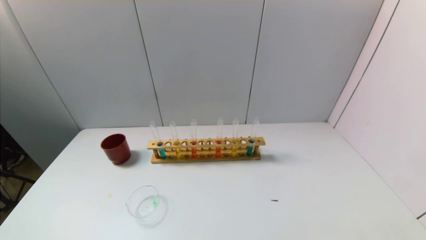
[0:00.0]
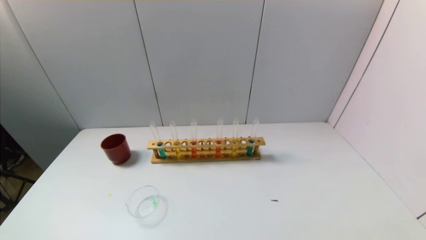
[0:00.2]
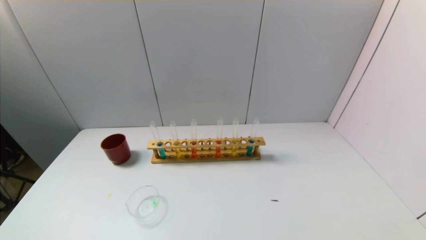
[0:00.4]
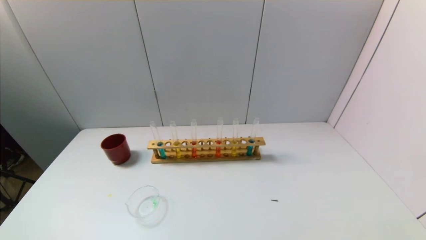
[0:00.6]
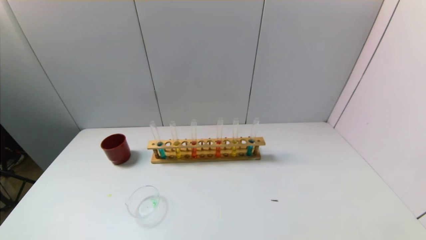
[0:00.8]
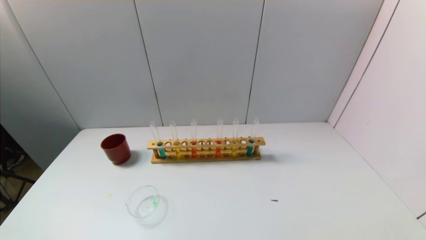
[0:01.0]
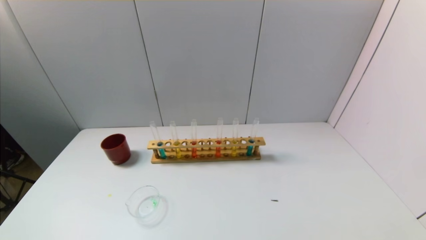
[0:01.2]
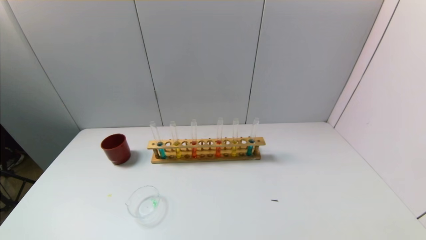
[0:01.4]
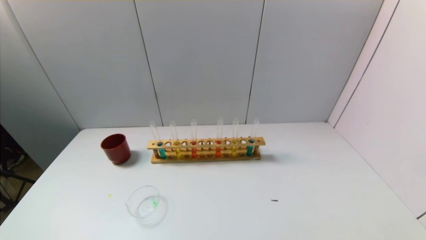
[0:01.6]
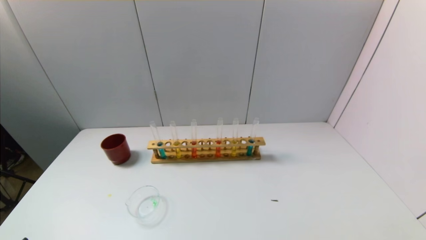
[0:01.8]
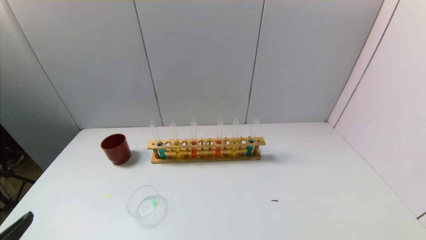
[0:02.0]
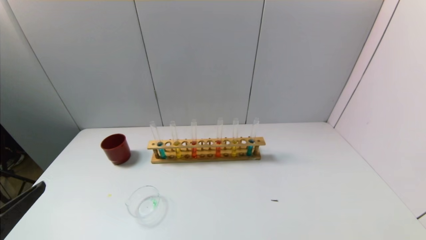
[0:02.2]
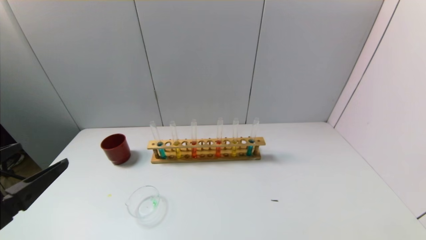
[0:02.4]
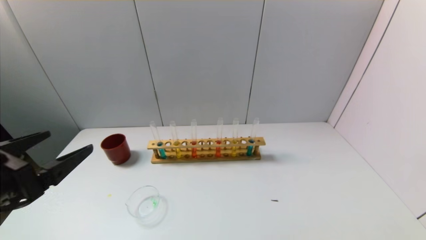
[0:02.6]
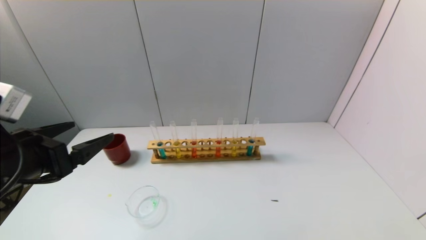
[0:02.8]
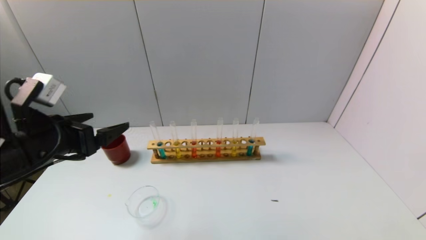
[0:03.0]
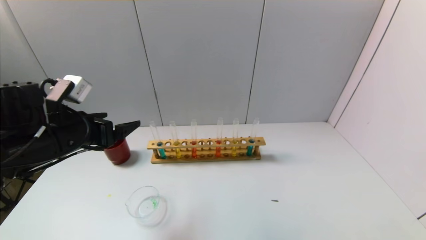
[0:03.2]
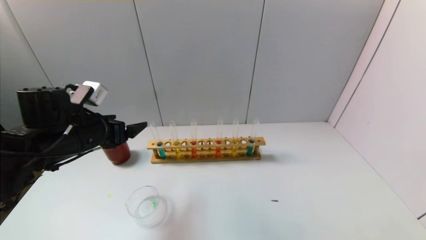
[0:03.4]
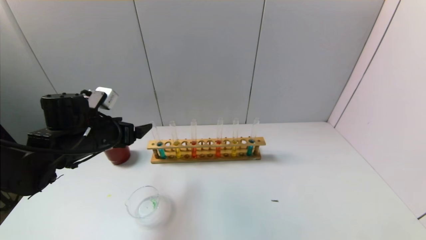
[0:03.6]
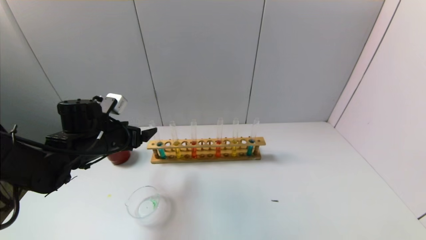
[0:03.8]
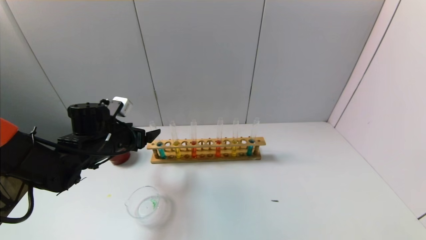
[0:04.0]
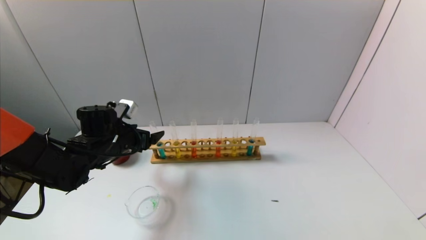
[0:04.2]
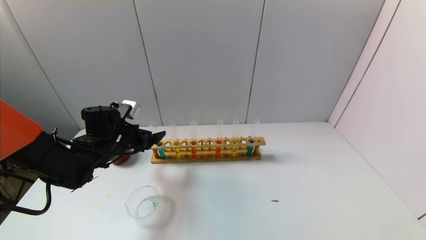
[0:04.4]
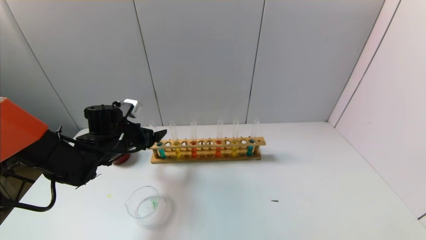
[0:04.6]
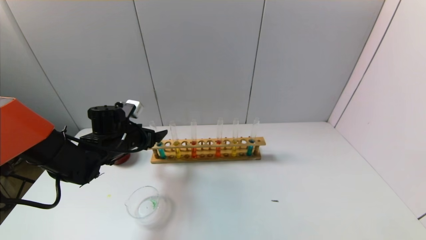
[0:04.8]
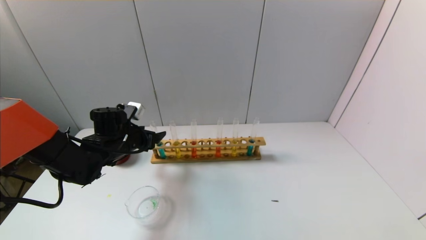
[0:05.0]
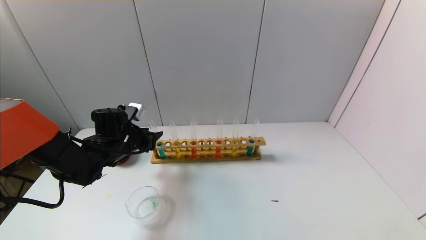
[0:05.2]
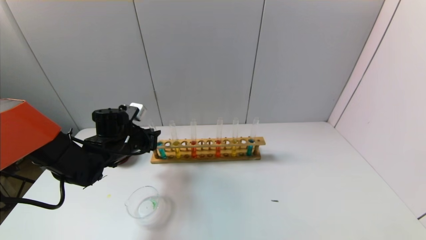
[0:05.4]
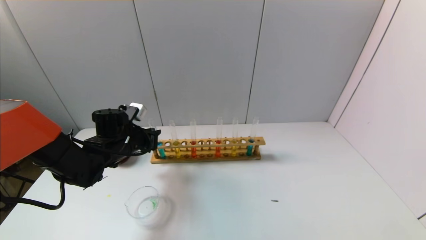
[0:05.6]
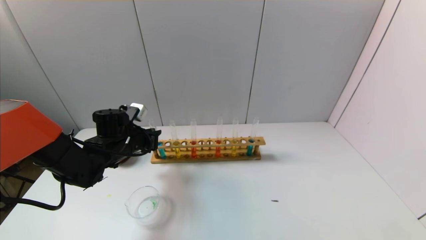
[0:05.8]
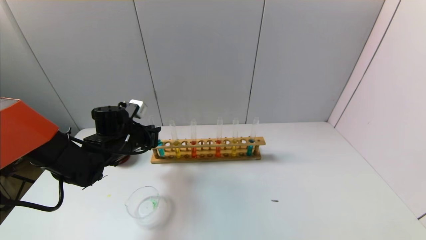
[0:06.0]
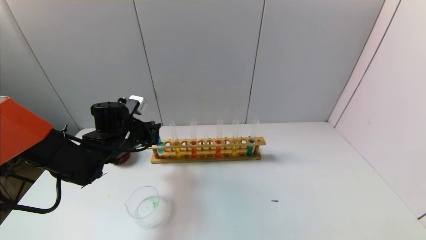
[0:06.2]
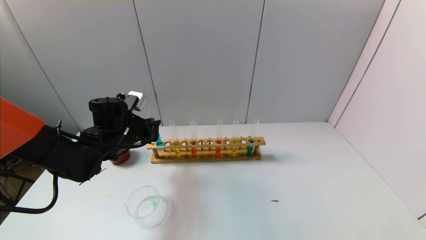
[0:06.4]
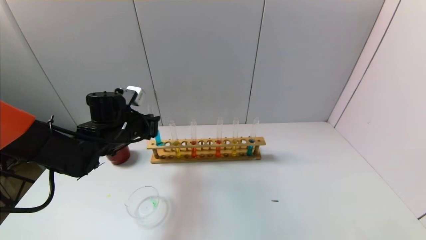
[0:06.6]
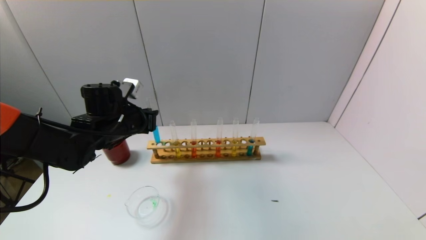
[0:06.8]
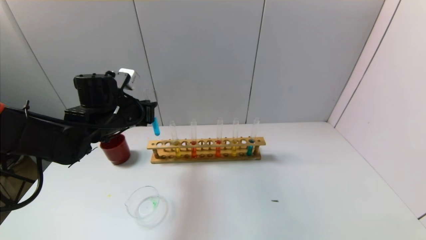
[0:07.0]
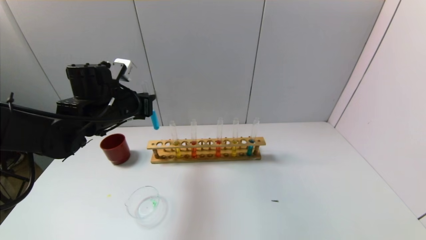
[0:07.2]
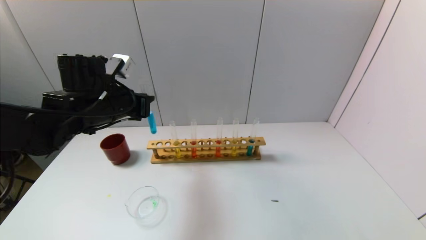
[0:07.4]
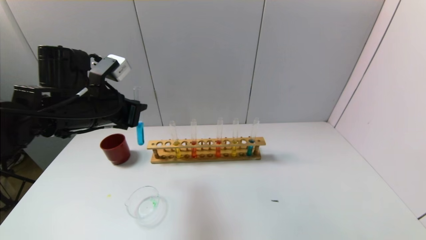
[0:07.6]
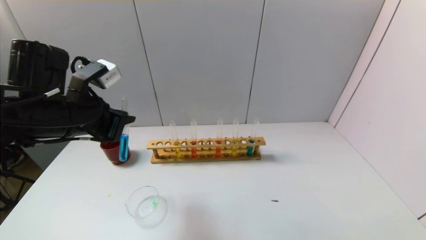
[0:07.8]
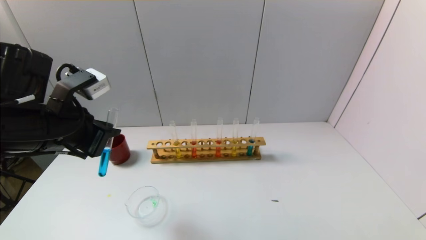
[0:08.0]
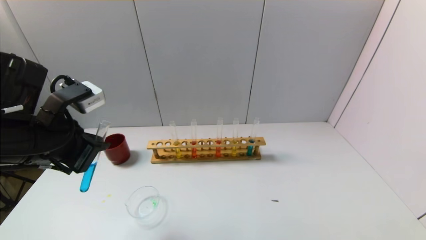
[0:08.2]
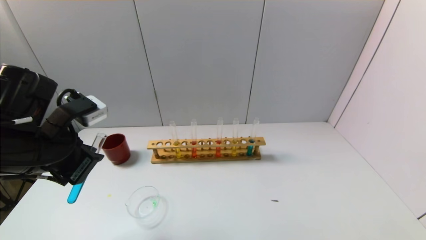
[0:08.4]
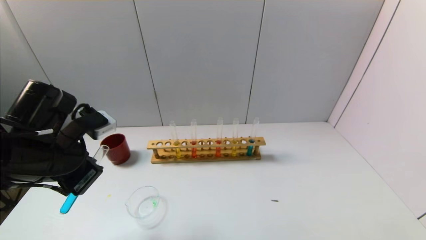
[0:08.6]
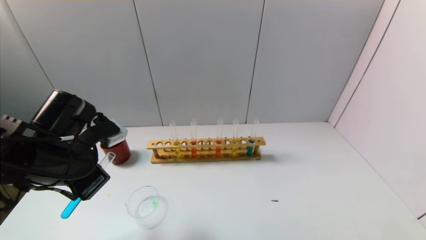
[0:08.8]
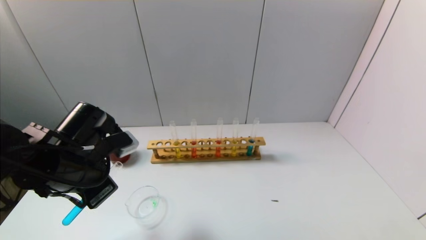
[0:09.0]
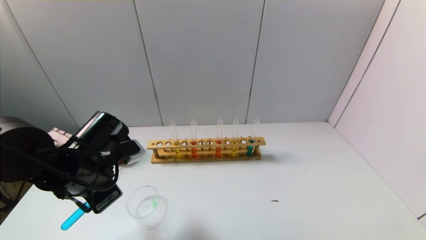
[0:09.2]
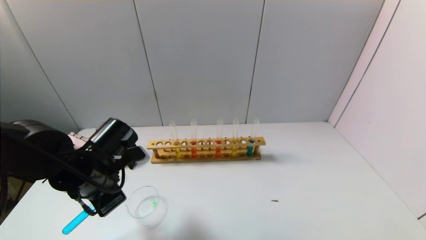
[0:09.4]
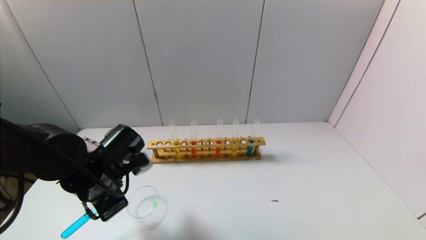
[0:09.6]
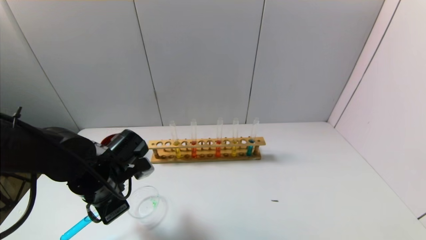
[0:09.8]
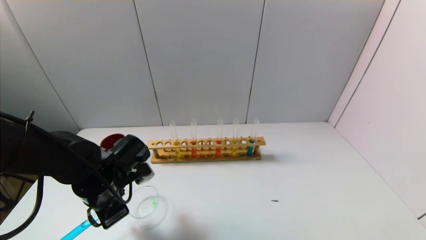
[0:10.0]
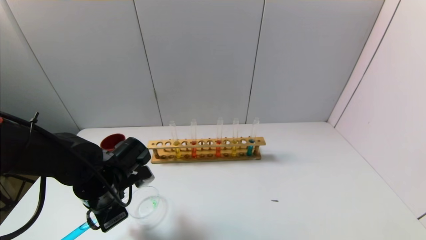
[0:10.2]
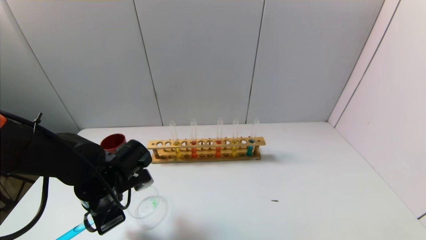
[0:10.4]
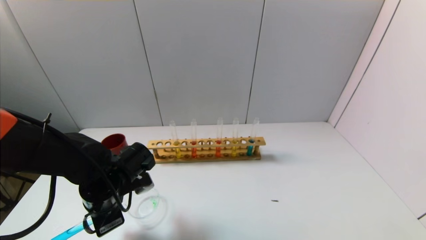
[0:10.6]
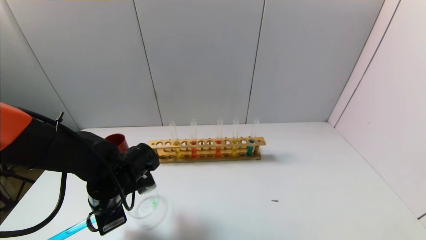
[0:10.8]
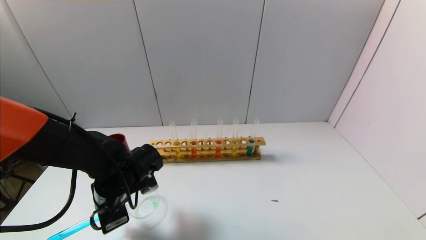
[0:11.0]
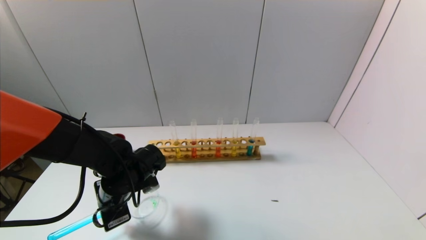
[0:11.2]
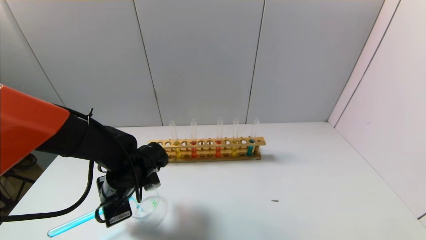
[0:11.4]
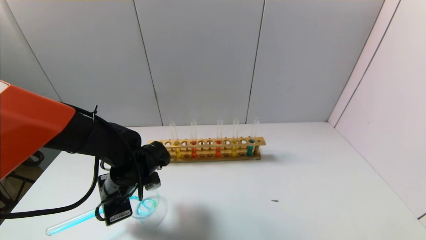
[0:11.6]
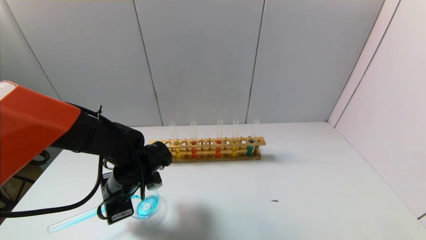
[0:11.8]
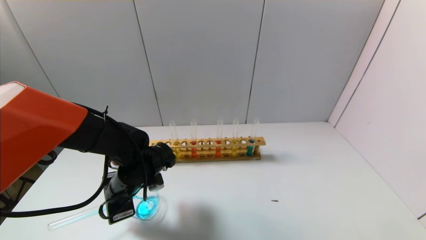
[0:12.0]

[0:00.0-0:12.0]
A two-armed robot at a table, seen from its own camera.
Task of the whole recording: pick up the test tube with yellow pigment and the test tube with blue pigment by grippers and pour them into the beaker.
Step, 0:00.0 to 0:05.6: Grasp the blue reagent with the left gripper.
0:01.6 to 0:03.0: The left gripper goes approximately 25 cm forward.
0:03.0 to 0:04.4: The left gripper is displaced forward and downward by roughly 15 cm.
0:04.4 to 0:06.0: The left gripper closes.
0:06.0 to 0:07.6: The left gripper moves upward and backward, about 15 cm.
0:07.6 to 0:09.0: The left gripper heads downward and backward, covering about 10 cm.
0:09.0 to 0:10.4: The left gripper moves downward, approximately 10 cm.
0:10.4 to 0:12.0: The grippers make only small movements.

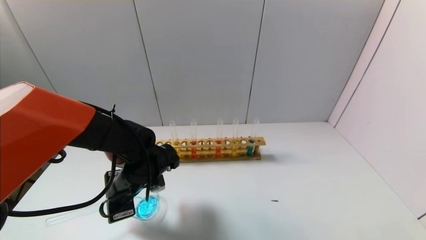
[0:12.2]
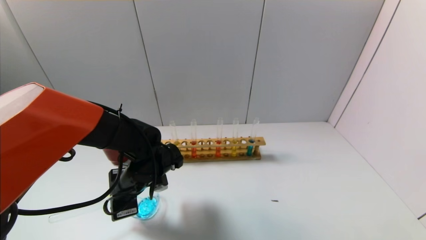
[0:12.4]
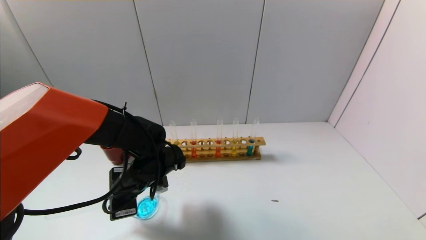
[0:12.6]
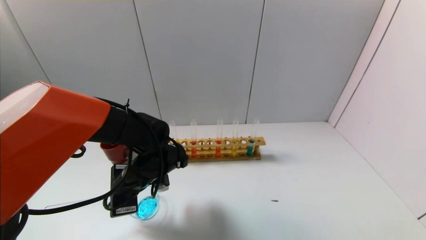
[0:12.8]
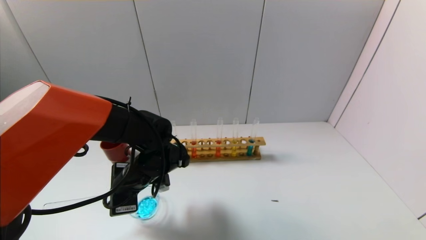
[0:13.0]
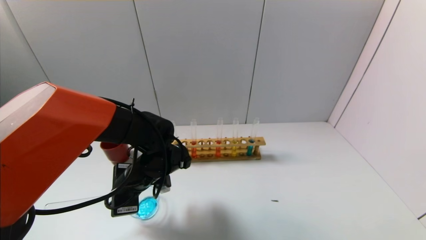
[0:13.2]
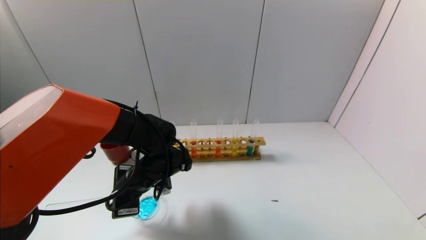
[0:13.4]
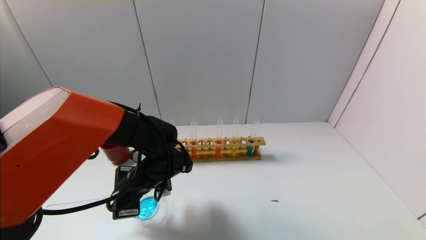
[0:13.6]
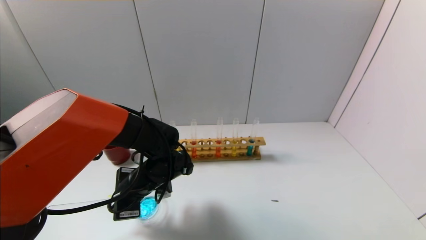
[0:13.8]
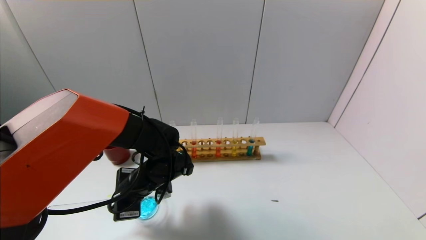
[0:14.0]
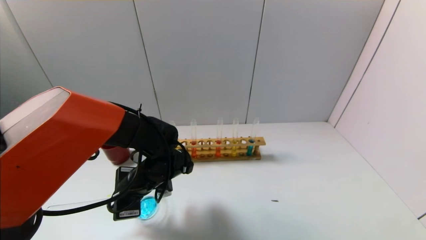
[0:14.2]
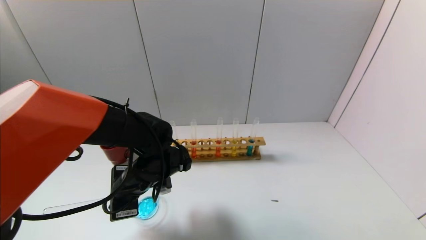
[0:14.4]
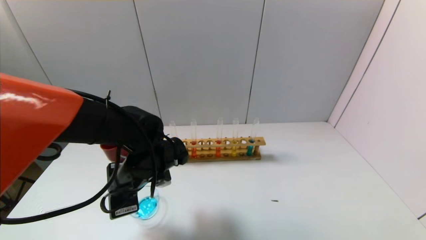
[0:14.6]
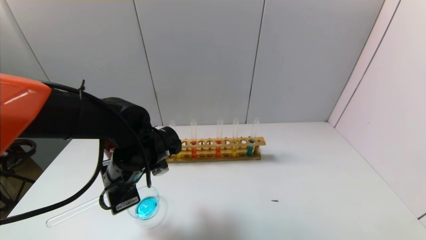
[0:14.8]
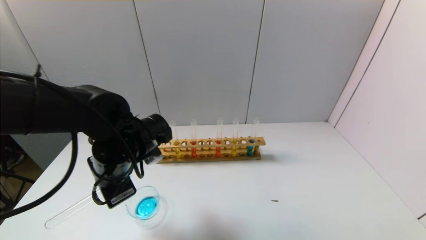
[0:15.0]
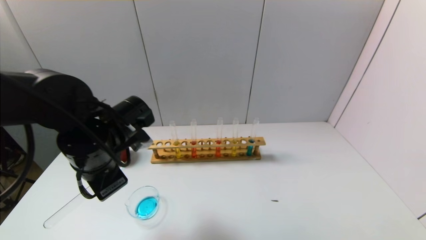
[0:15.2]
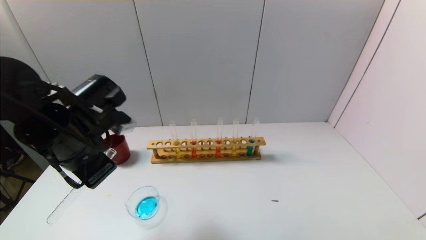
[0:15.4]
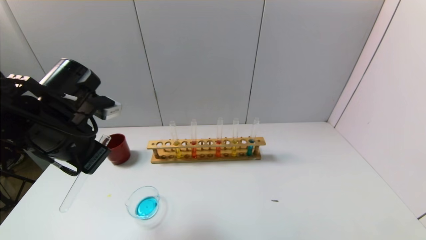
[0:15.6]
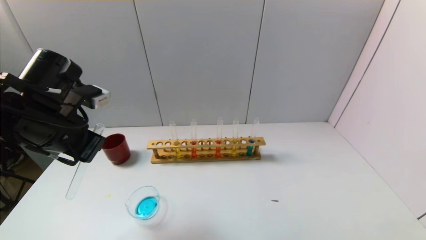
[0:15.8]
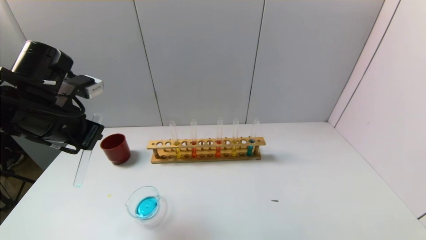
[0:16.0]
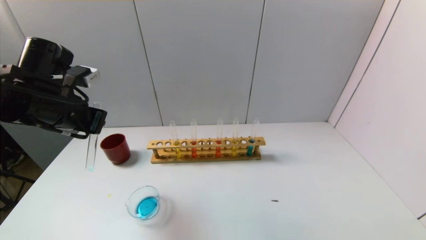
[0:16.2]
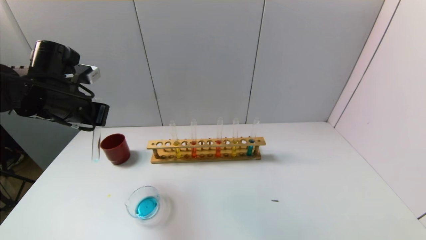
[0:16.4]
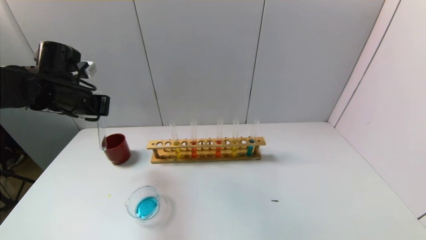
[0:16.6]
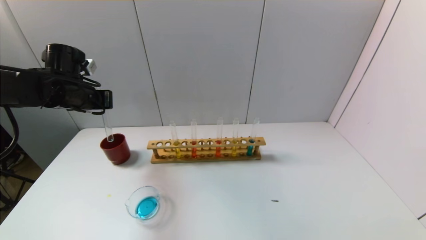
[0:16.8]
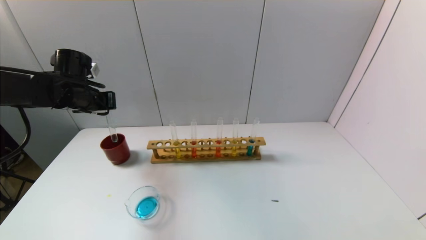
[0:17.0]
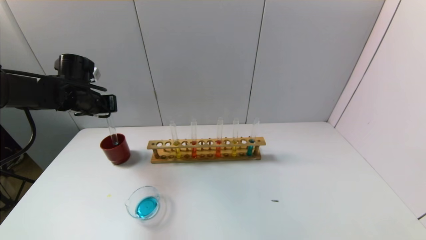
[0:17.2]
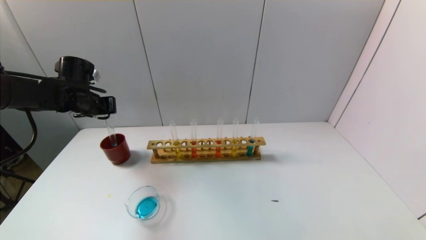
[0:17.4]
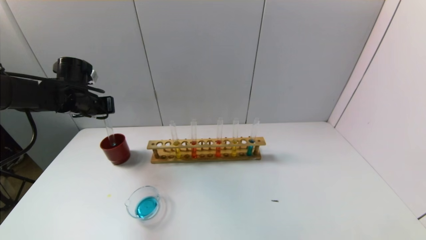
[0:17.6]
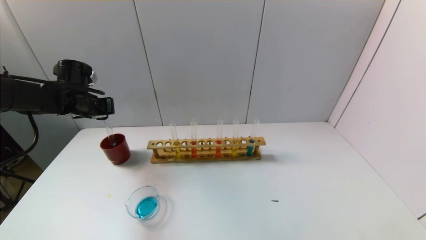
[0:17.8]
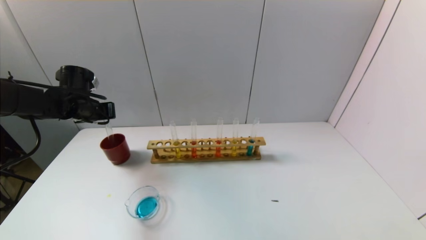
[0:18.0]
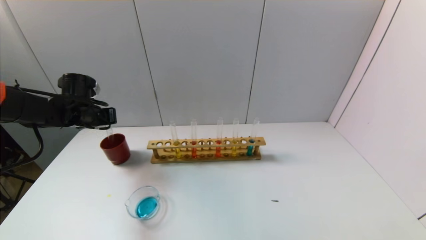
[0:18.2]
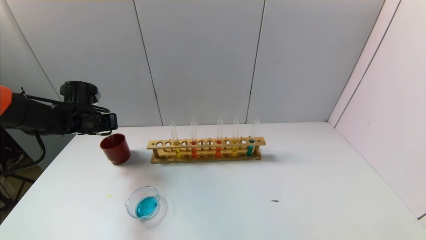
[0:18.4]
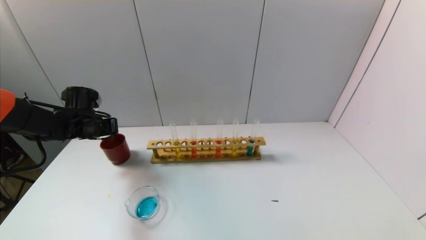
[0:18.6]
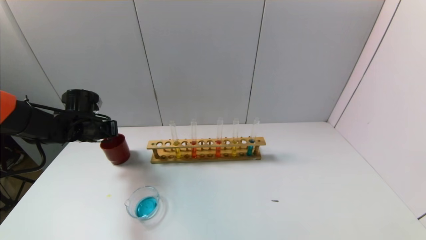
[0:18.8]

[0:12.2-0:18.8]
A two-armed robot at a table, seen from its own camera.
Task of the whole recording: pick up the test tube with yellow pigment and the test tube with blue pigment by grippers and pour them into the beaker.
Step, 0:12.2 to 0:14.8: Pour the blue reagent into the graduated cylinder with the left gripper.
0:12.2 to 0:13.8: There are only small adjustments of the grippers.
0:13.8 to 0:15.4: The left gripper heads upward and to the left, covering roughly 15 cm.
0:15.4 to 0:17.2: The left gripper heads forward and to the left, covering roughly 20 cm.
0:17.2 to 0:18.8: The left gripper travels downward by roughly 10 cm.
